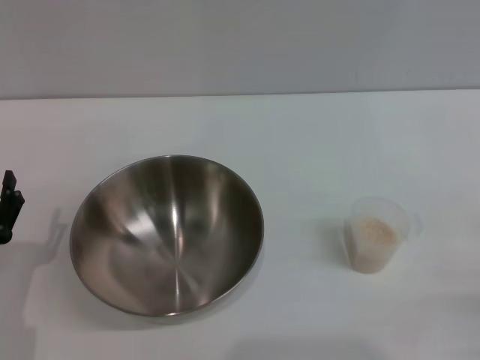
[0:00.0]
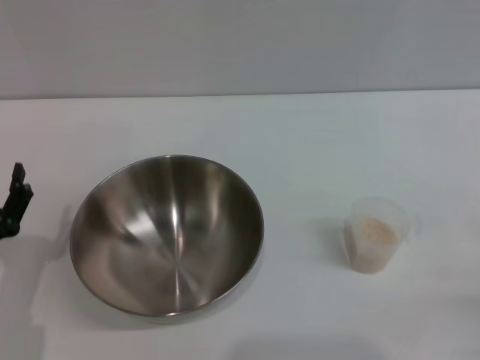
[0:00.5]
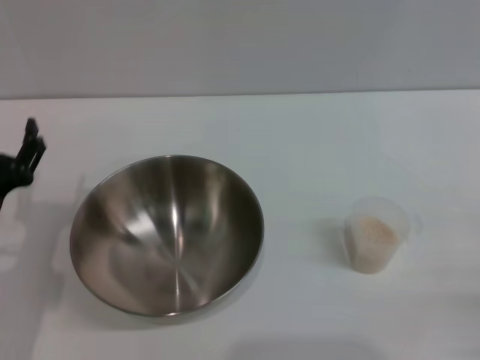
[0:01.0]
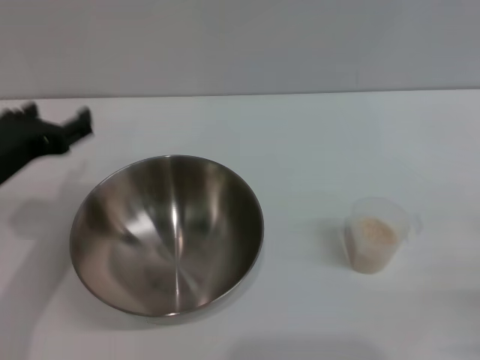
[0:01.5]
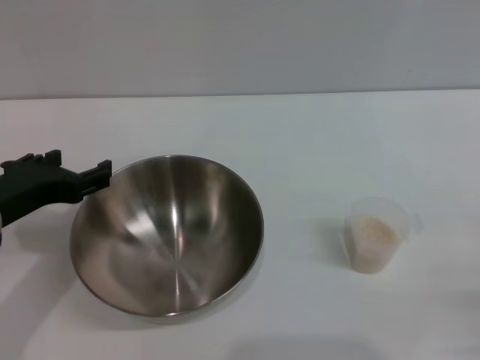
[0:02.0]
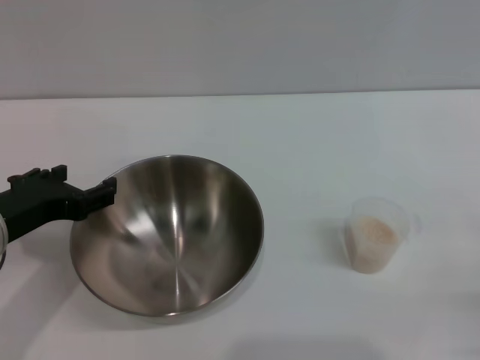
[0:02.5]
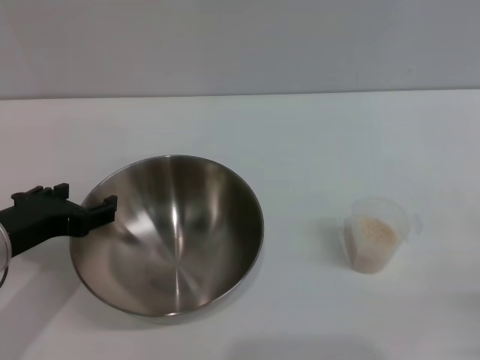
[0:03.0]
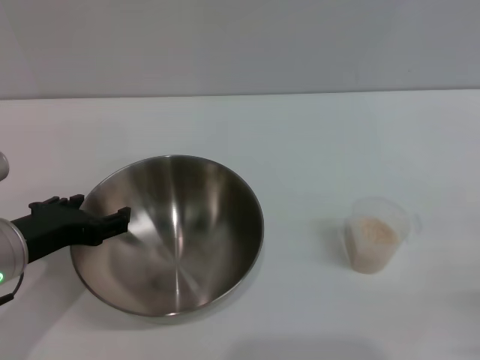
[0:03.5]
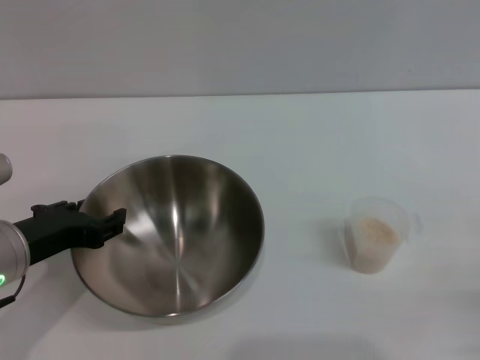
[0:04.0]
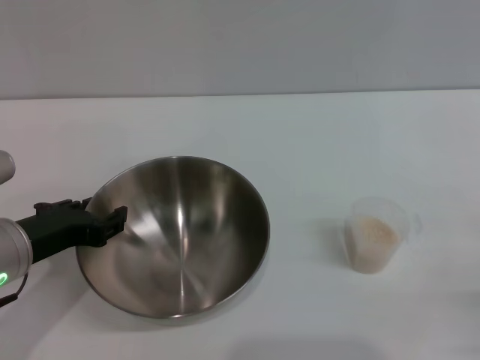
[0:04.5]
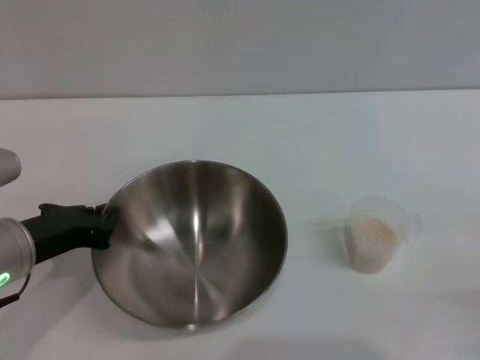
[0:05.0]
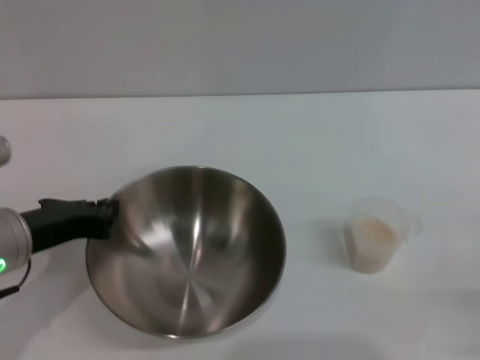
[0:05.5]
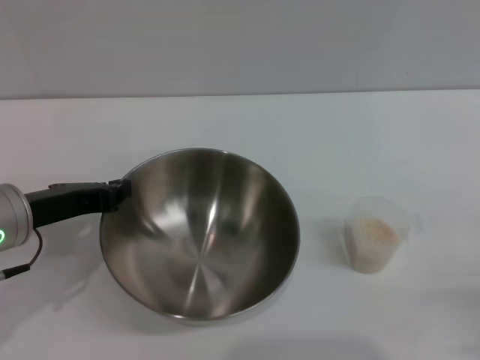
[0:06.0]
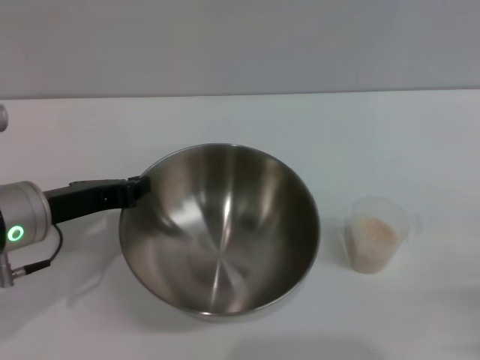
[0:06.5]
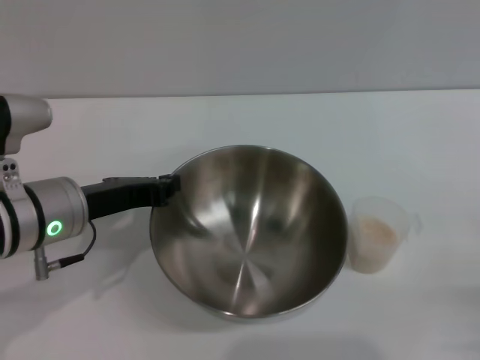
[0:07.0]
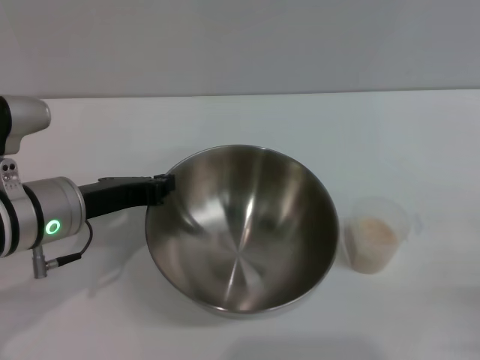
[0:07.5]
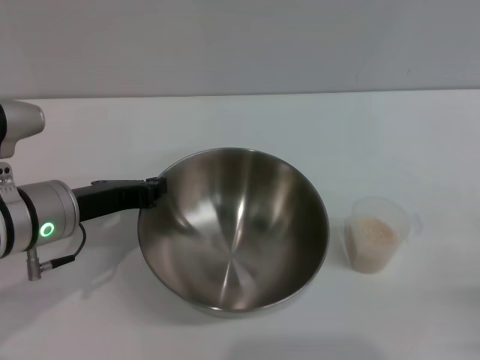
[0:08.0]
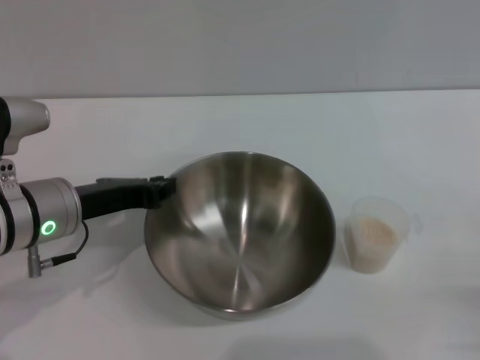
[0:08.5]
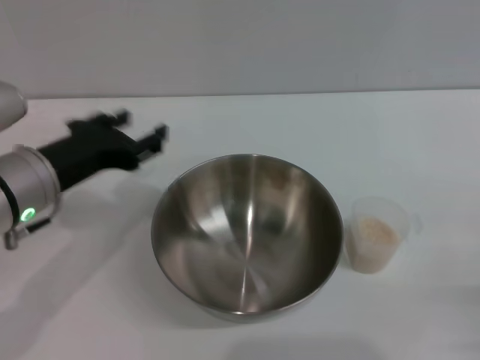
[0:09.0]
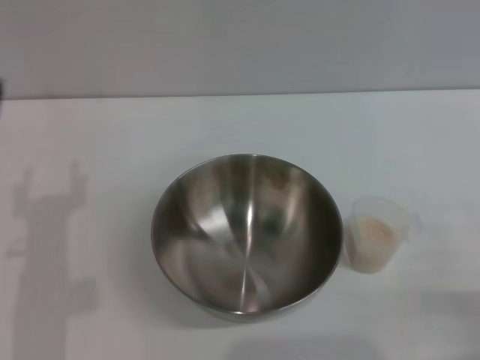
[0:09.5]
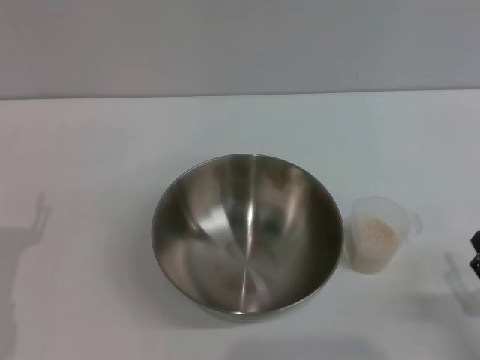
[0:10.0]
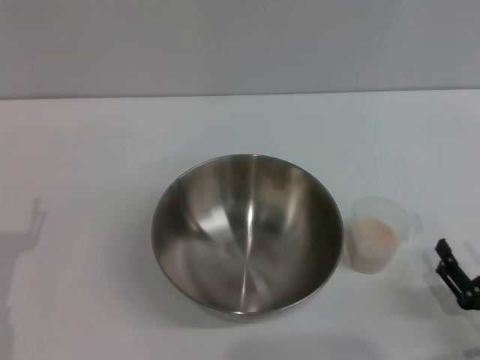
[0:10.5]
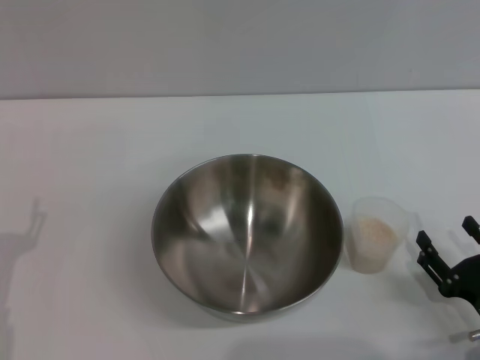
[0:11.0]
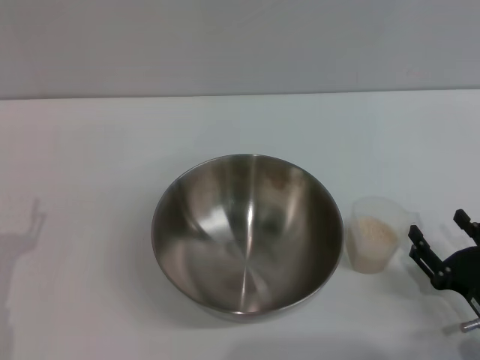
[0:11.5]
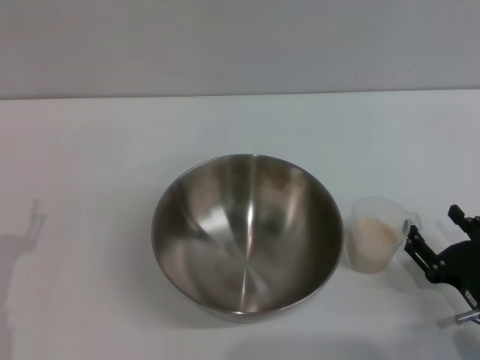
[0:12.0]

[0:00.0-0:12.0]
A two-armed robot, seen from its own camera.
Task of the whole recording: Place the bowl in the middle of the table with one hand and pour the rice from the grain cup into it with the other hand.
Step, 0:00.0 to 0:06.0: Pick up the bowl with the left gripper.
Step, 0:06.5 to 0:08.5: Place the bowl in the center of view with the left gripper.
0:00.0 to 0:02.0: The left gripper travels upward and forward by roughly 15 cm.
0:02.0 to 0:04.0: The grippers make only small movements.
0:04.0 to 0:06.0: The left gripper closes.
0:06.0 to 0:08.0: The grippers make only small movements.
0:08.0 to 0:10.0: The left gripper goes approximately 15 cm backward, to the left and downward, and opens its fingers.
0:10.0 to 0:12.0: The right gripper goes approximately 5 cm forward.

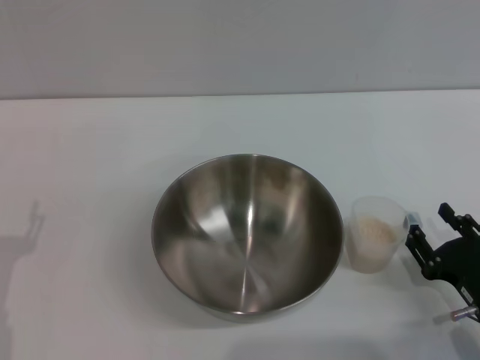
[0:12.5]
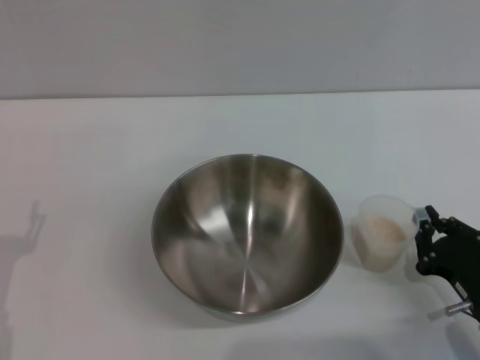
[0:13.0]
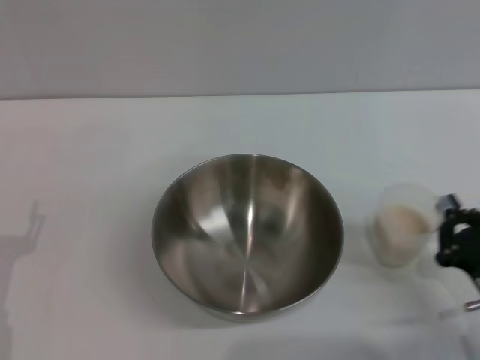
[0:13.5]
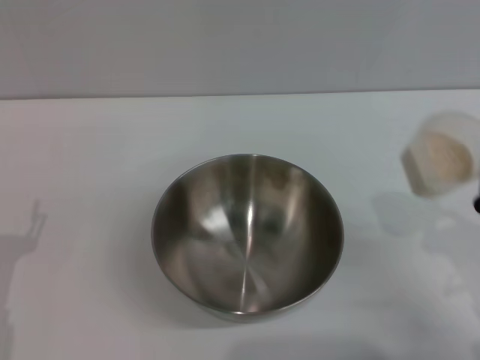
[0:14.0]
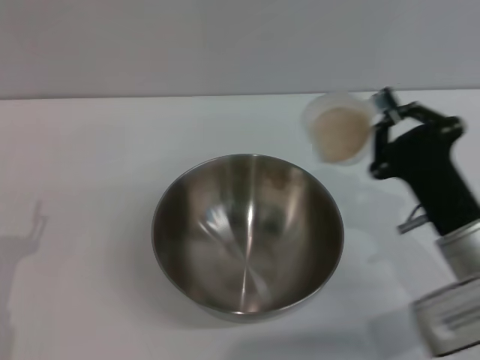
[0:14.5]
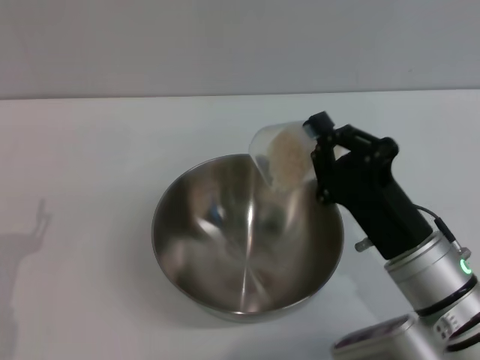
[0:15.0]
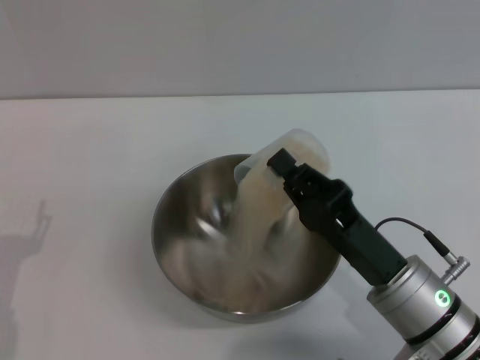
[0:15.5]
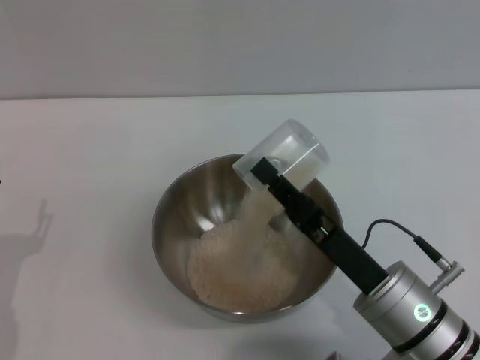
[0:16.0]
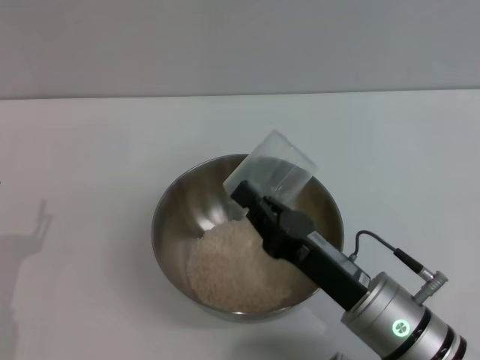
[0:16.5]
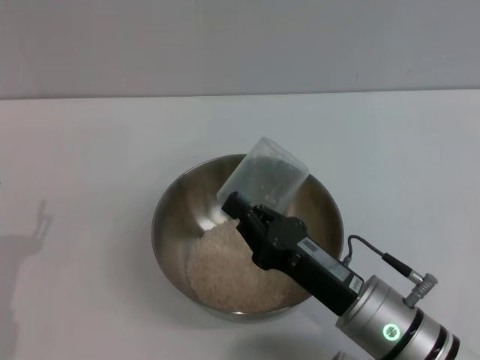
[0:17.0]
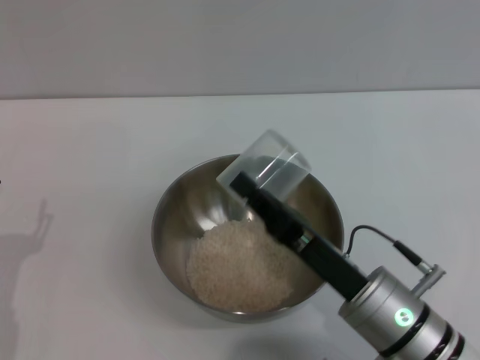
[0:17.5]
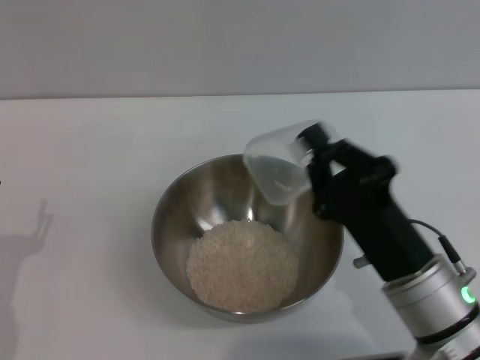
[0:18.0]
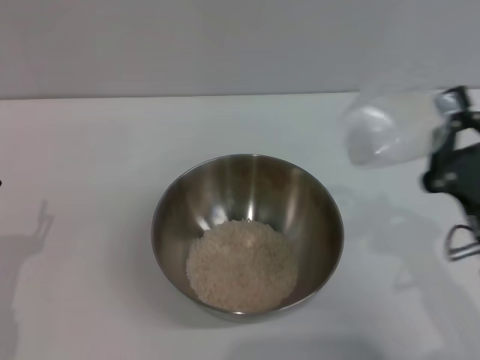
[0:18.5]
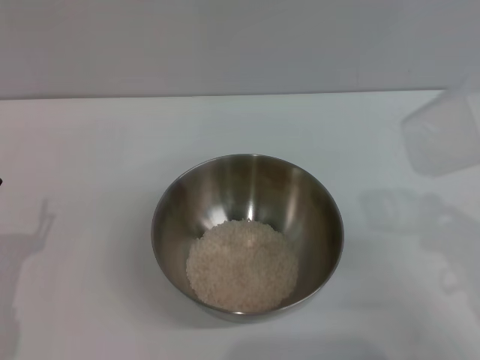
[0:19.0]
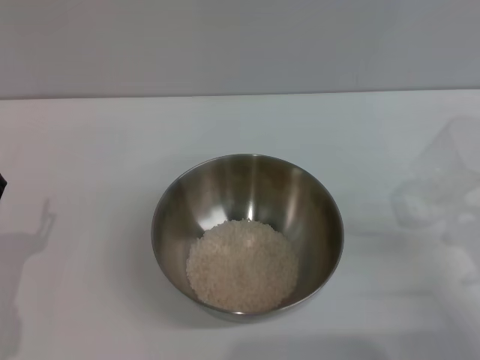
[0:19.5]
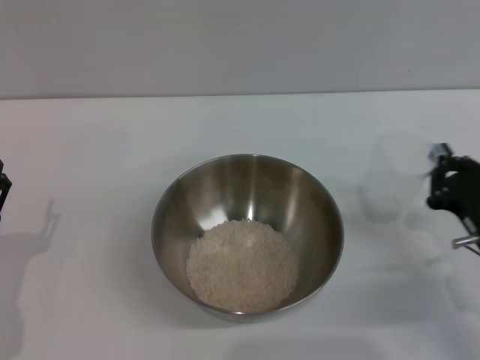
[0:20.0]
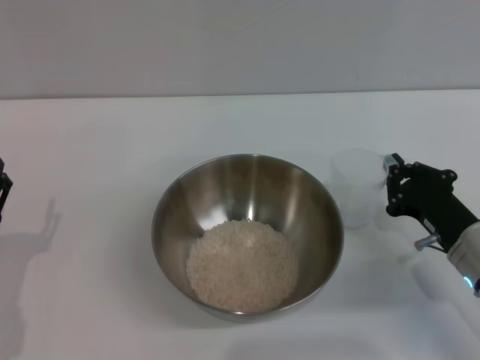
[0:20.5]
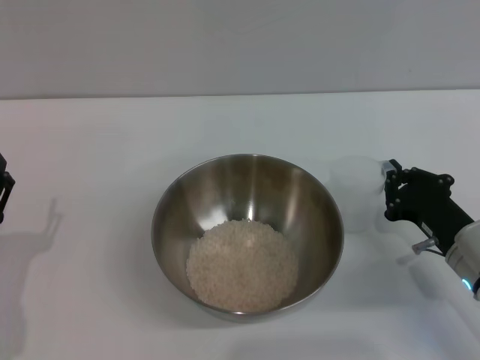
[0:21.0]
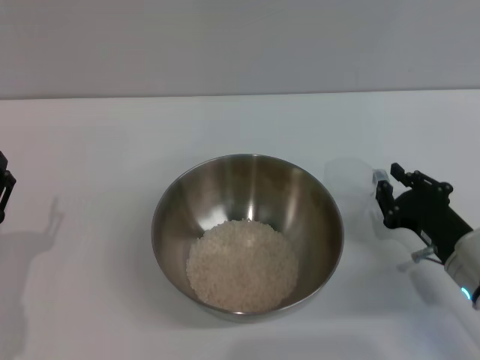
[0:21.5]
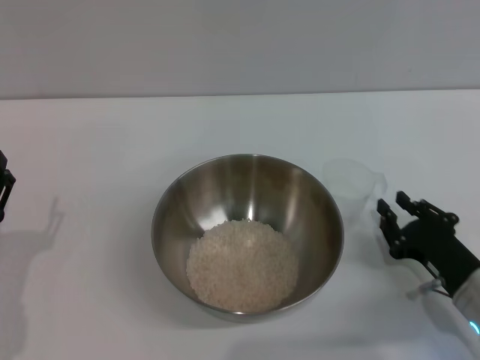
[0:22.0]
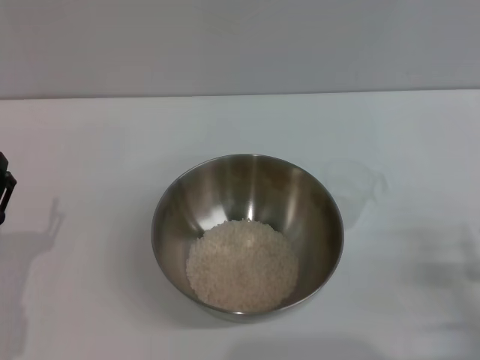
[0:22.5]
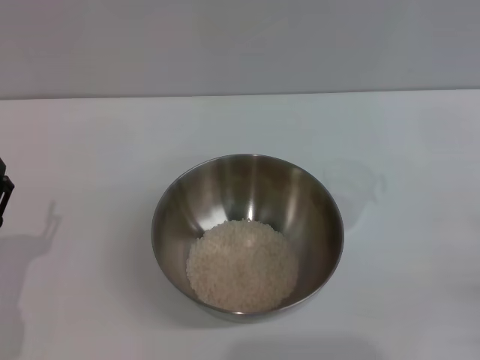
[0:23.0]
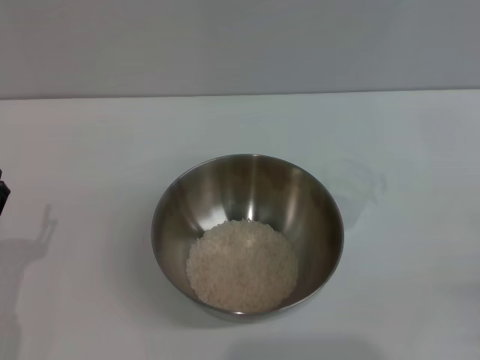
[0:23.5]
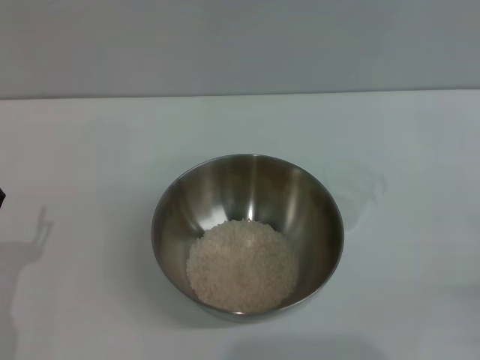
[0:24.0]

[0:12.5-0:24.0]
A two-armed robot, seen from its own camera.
Task of the whole recording: Place the bowl in the middle of the table with one hand and pour the rice from the grain cup into it with the other hand.
Step, 0:14.0 to 0:17.5: Pour the rice from the cup into the bowl with the right gripper.
Step, 0:18.0 to 0:22.0: Place the cup on the table with the right gripper.
0:12.5 to 0:14.5: The right gripper shifts some 10 cm upward, to the left and forward, and closes its fingers.
0:14.5 to 0:16.5: The right gripper shifts approximately 5 cm to the left.
0:16.5 to 0:18.5: The right gripper moves to the right, roughly 10 cm.
0:18.5 to 0:20.0: The right gripper shifts about 10 cm to the right, downward and forward.
0:20.0 to 0:22.0: The right gripper opens up.
0:22.0 to 0:24.0: The right gripper is displaced backward and to the right by approximately 15 cm, and opens up.

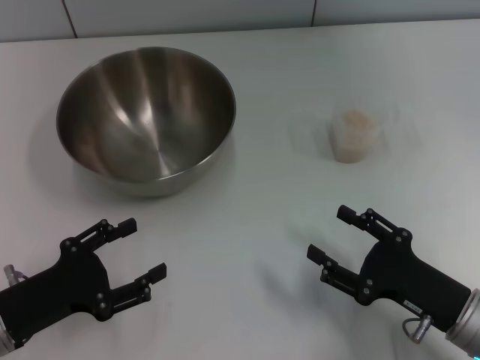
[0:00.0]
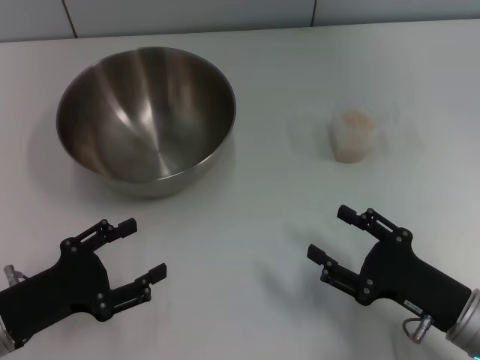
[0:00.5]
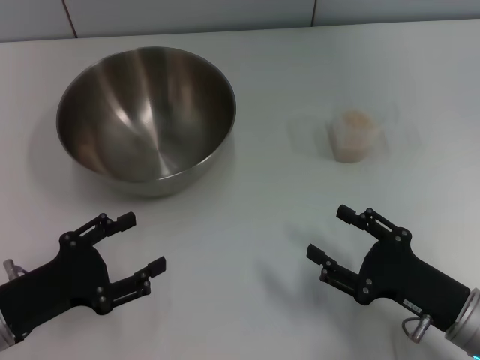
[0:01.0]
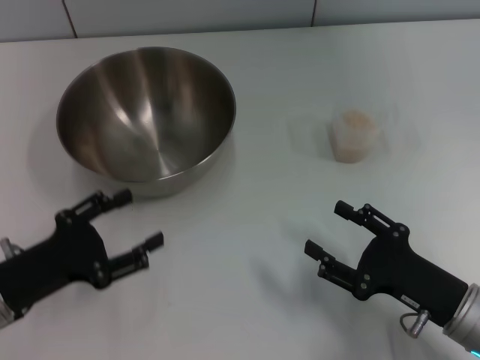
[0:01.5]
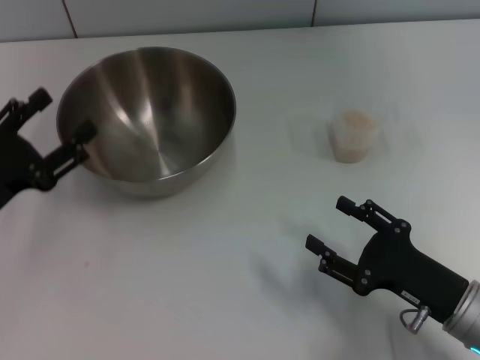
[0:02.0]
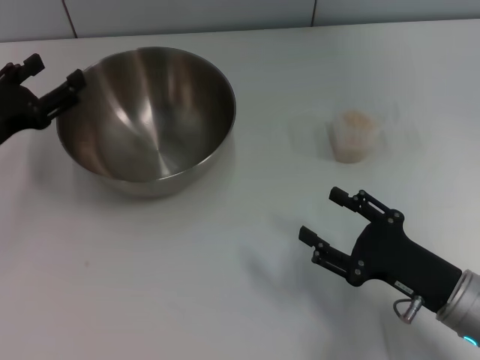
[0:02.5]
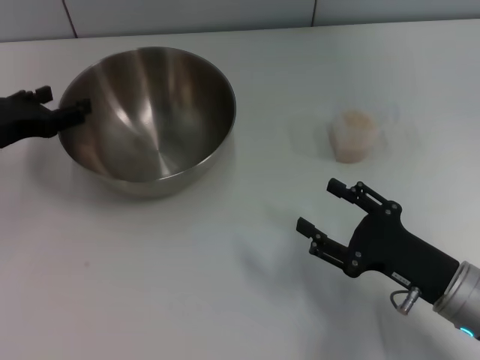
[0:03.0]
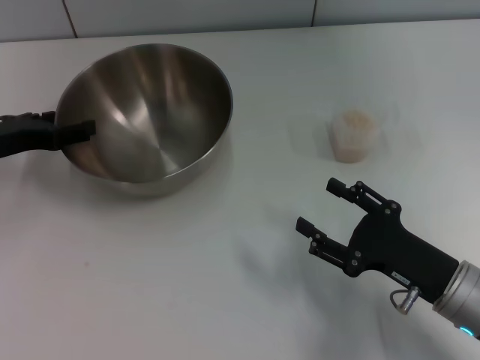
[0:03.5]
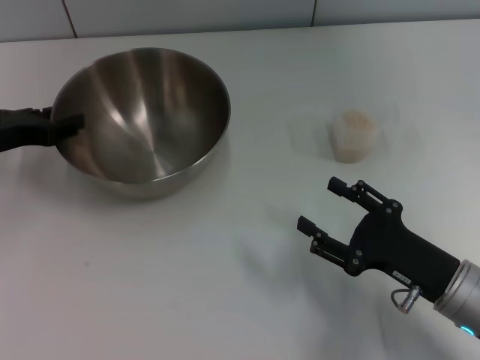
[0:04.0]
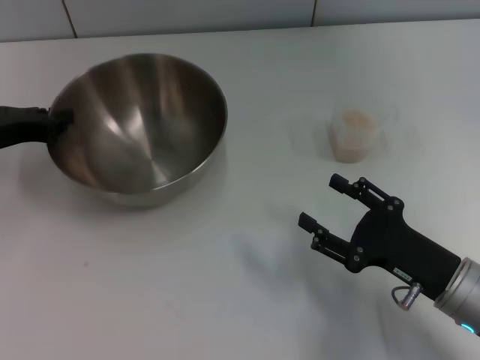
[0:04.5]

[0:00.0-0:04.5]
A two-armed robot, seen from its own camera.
Task of the whole recording: Place the bowl in the middle of the table with one hand and pour the rice from the grain cup into it with the other hand.
0:00.0 to 0:02.0: The left gripper shifts by about 5 cm.
0:02.0 to 0:04.5: The left gripper travels forward by some 10 cm, and closes up.
